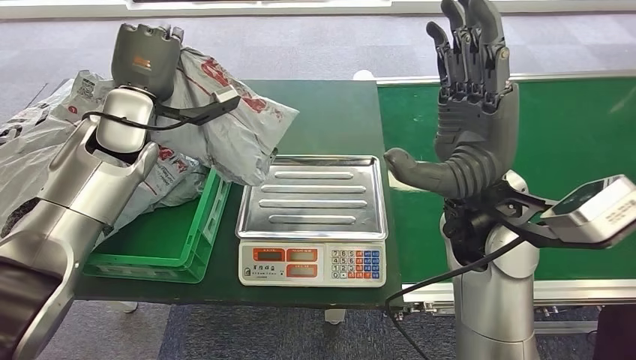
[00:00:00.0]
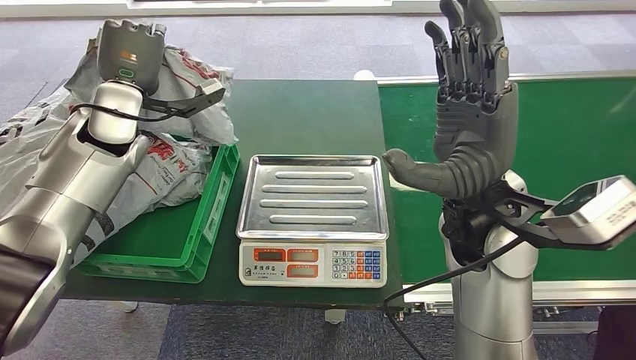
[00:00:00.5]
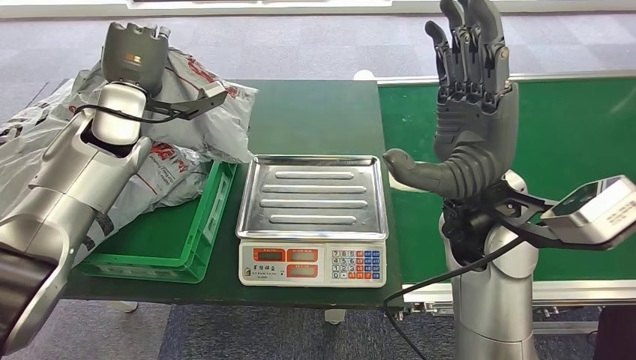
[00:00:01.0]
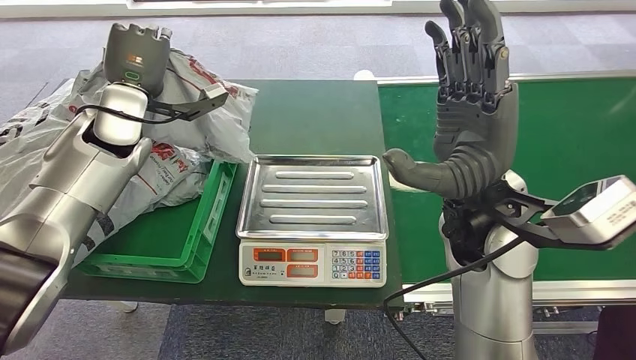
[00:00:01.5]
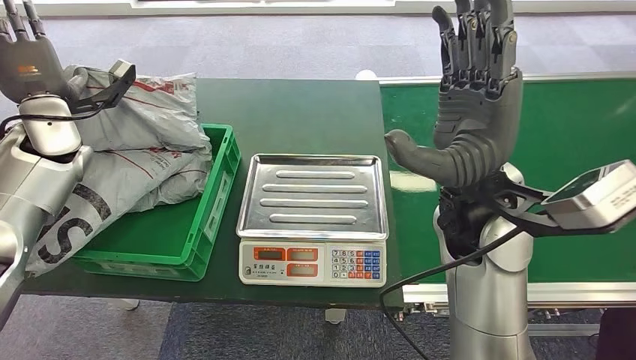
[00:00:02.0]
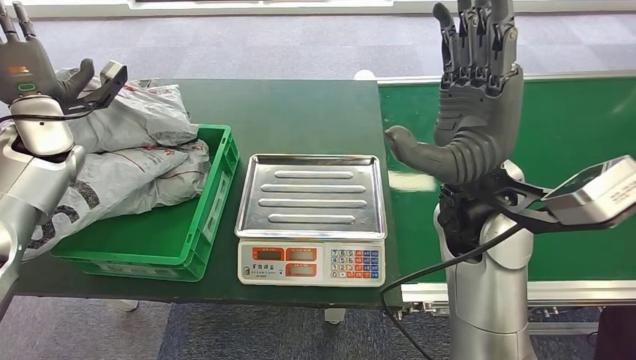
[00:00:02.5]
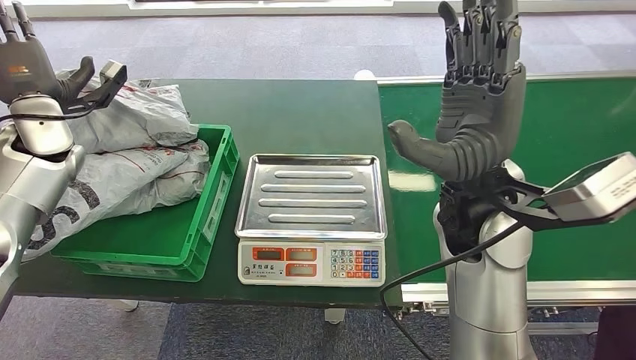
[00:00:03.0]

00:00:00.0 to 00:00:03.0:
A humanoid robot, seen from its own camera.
Step, 00:00:00.0 to 00:00:03.0: Place the package into the parcel locker.
00:00:00.0 to 00:00:01.5: The hands stay close to where they were, moving slightly.

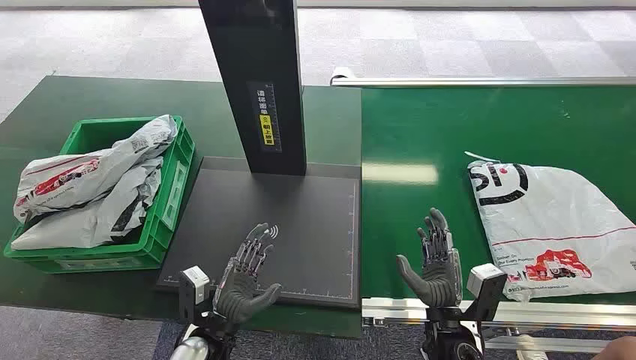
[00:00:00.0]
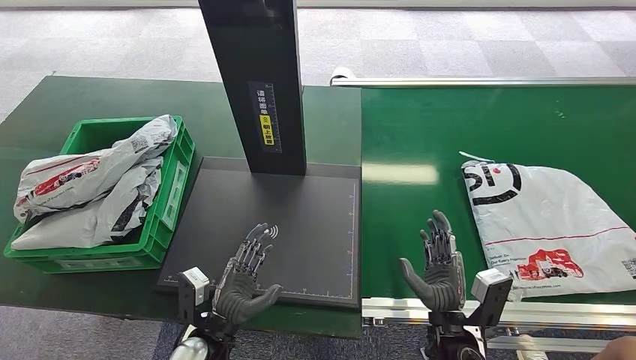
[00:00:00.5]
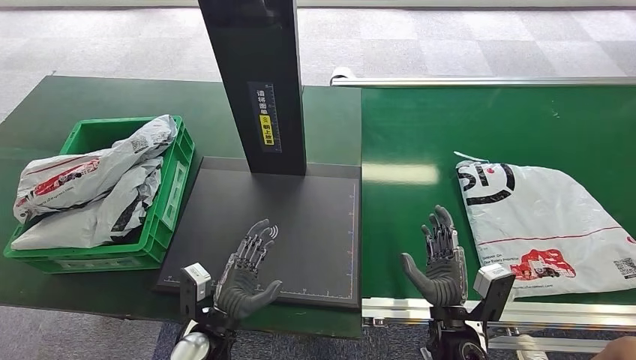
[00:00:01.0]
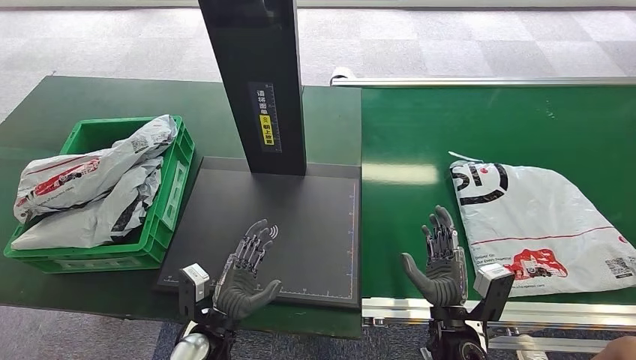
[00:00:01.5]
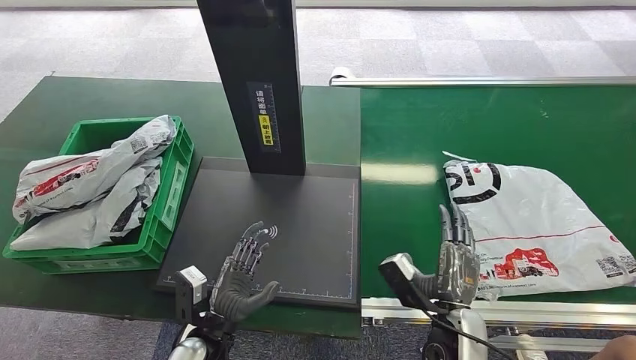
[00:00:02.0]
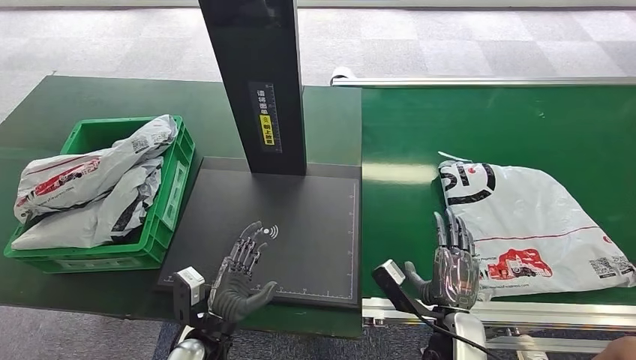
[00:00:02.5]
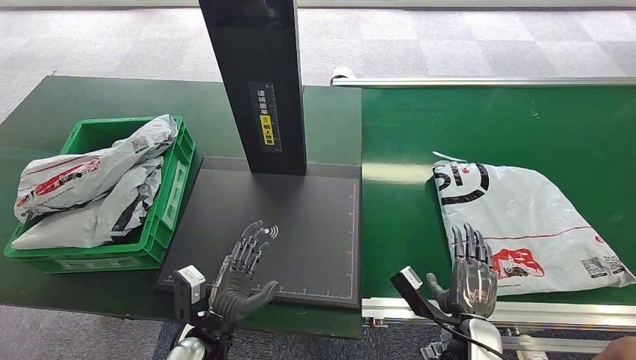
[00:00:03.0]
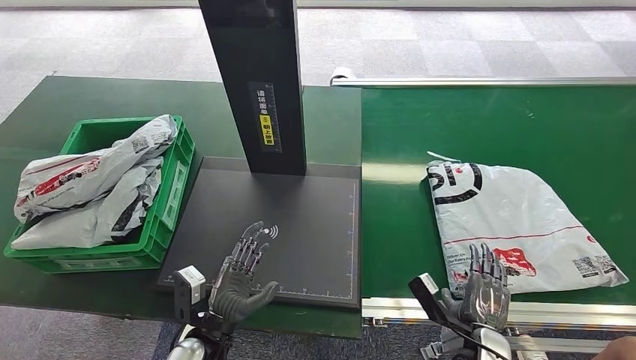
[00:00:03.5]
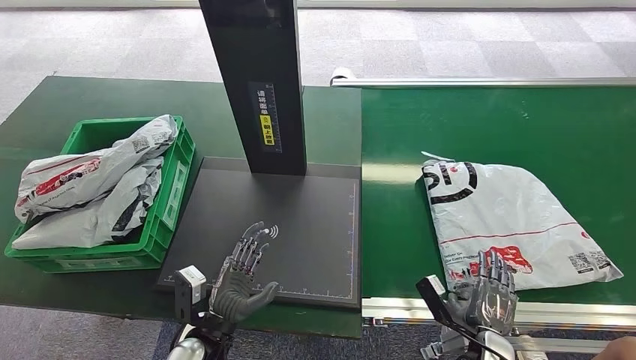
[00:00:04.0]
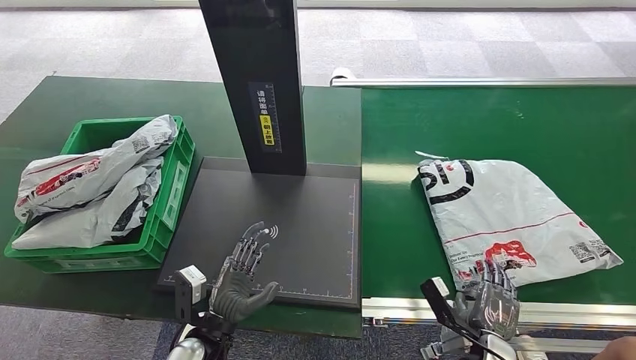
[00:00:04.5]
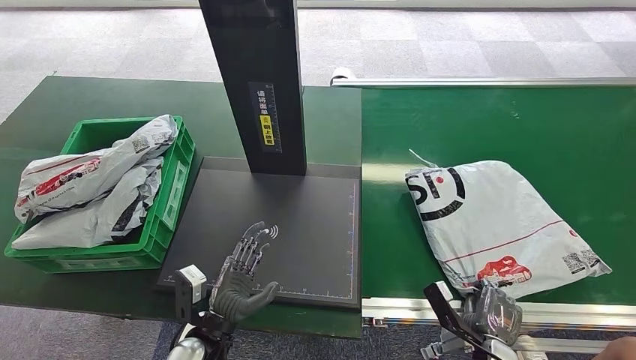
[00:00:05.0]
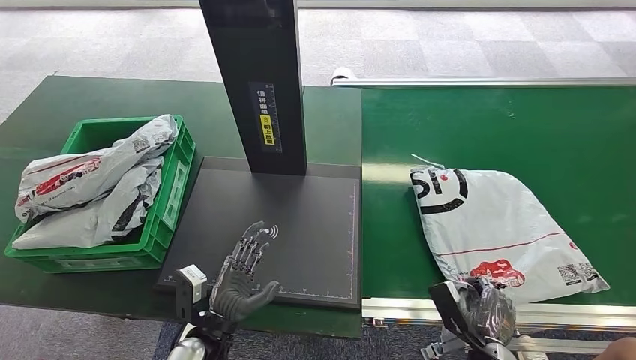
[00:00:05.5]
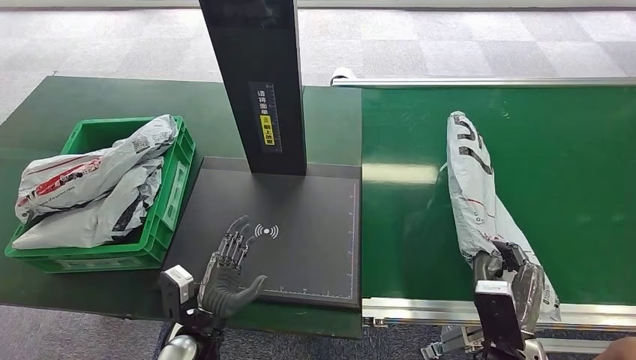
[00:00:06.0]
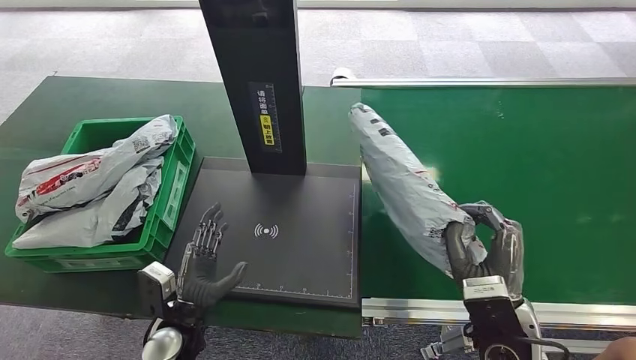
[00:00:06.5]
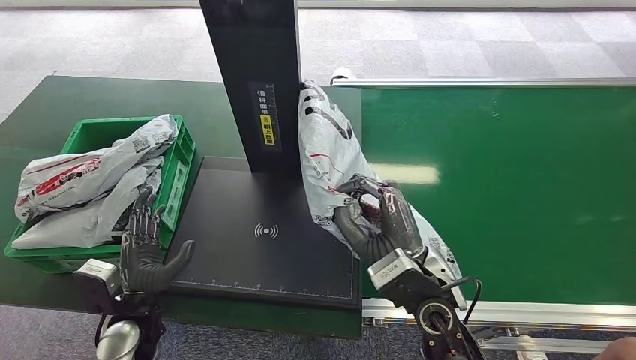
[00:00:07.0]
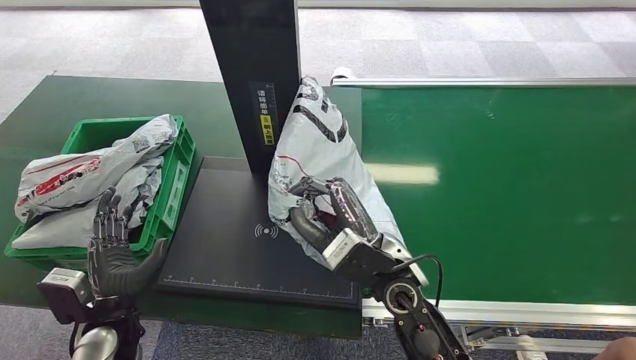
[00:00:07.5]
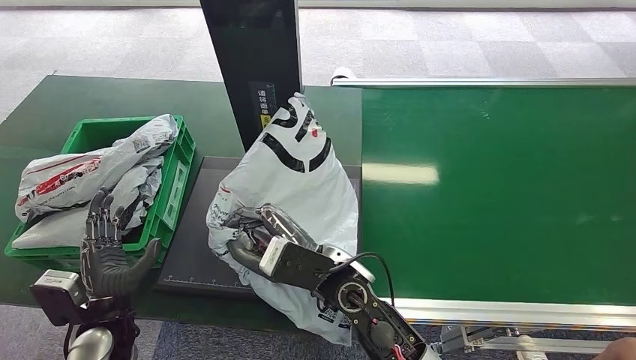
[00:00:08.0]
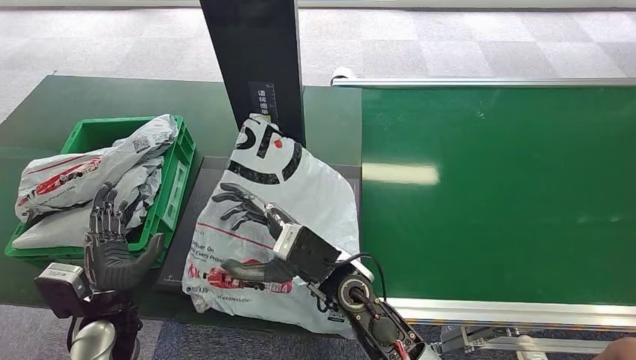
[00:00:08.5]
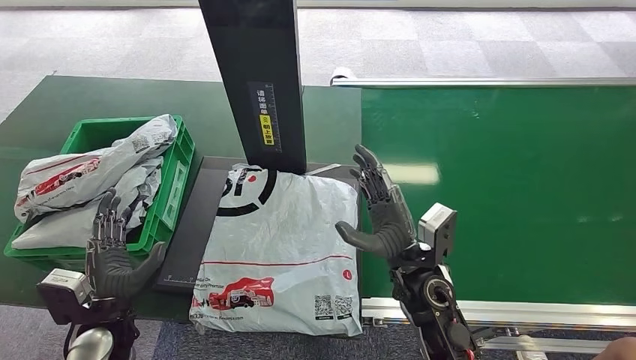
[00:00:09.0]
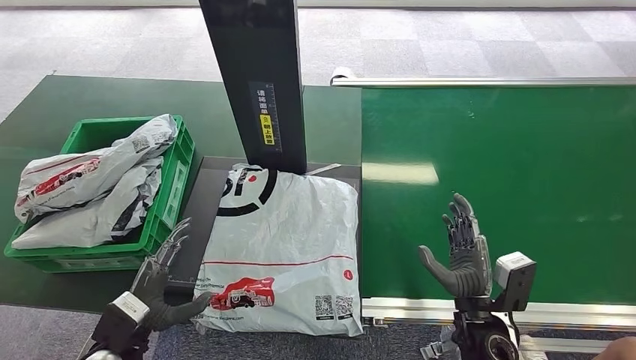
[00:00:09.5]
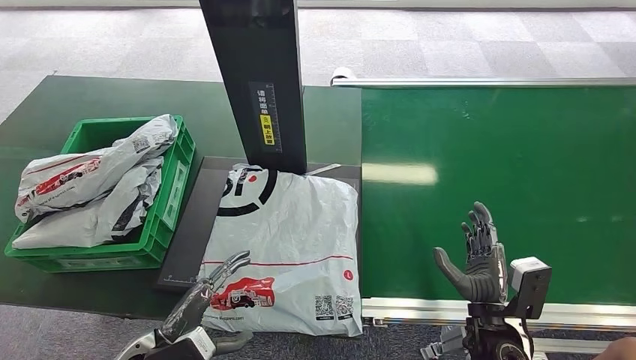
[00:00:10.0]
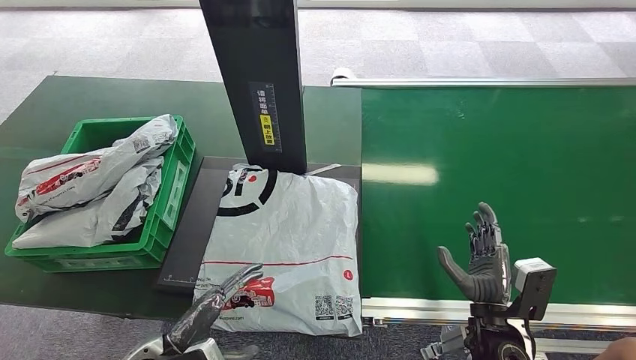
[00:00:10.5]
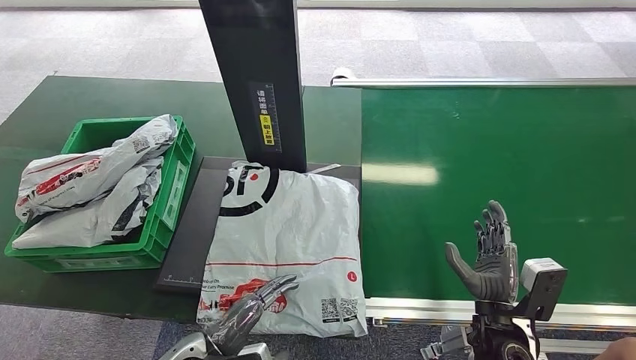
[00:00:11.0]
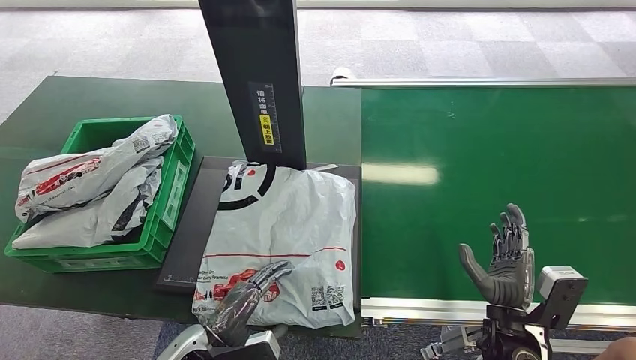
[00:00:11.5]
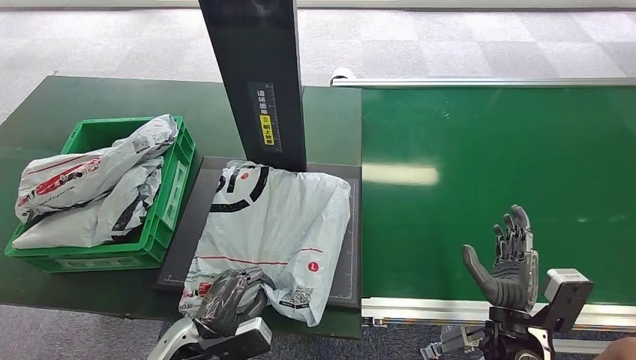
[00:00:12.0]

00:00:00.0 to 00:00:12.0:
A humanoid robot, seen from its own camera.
Step, 00:00:00.0 to 00:00:06.5: Pick up the package from the conveyor belt.
Step, 00:00:07.0 to 00:00:11.5: Place the package onto the inbound machine.
00:00:02.0 to 00:00:04.0: The right hand shifts some 15 cm to the right and downward.
00:00:04.0 to 00:00:06.0: The right hand is displaced upward by some 10 cm.
00:00:08.0 to 00:00:10.0: The left hand heads to the right, covering approximately 5 cm. Meanwhile the right hand goes about 25 cm to the right.
00:00:10.0 to 00:00:12.0: The left hand heads to the right, covering approximately 5 cm.

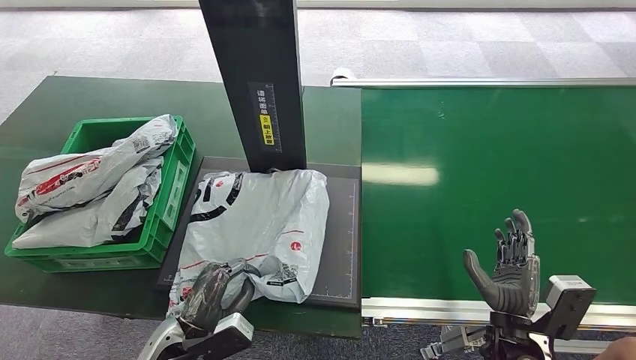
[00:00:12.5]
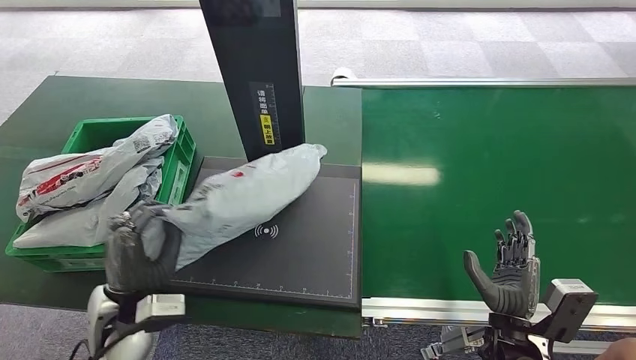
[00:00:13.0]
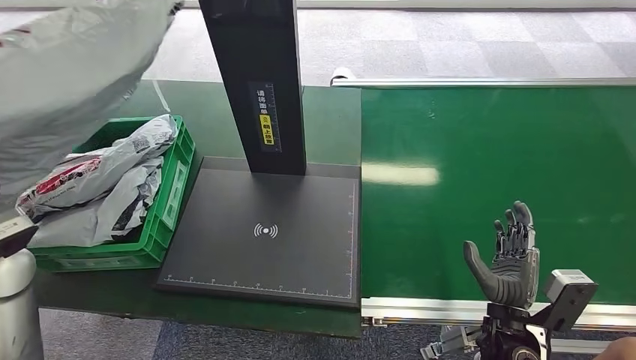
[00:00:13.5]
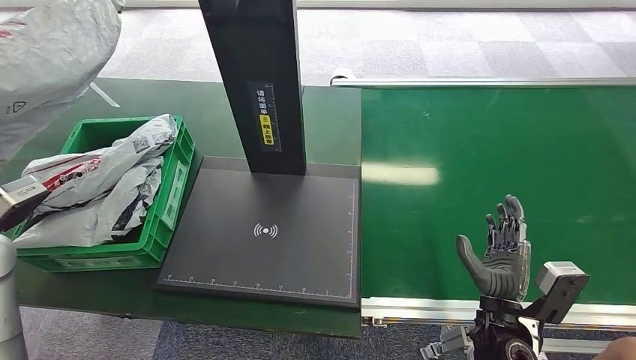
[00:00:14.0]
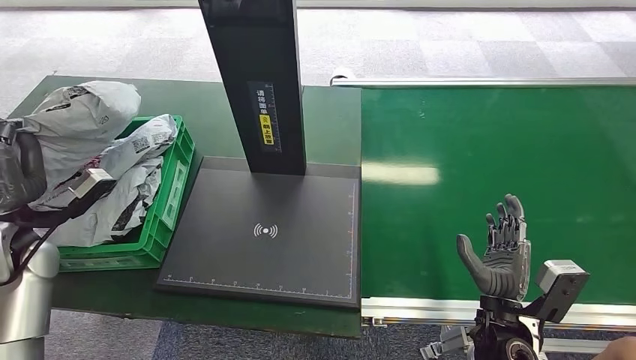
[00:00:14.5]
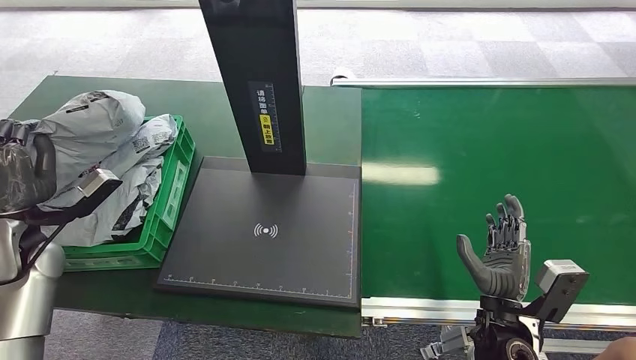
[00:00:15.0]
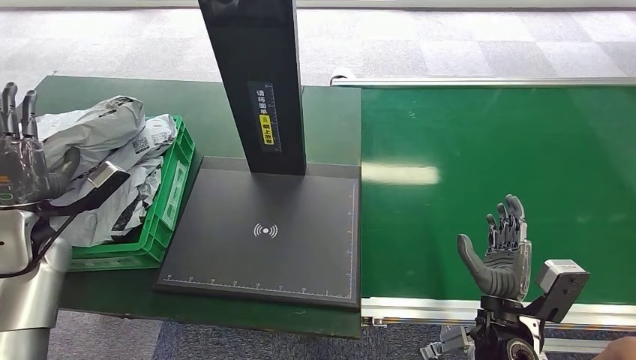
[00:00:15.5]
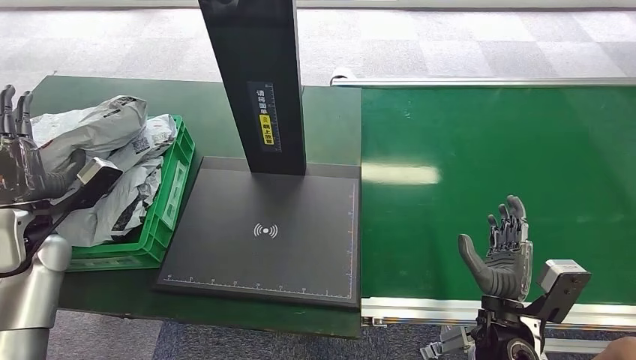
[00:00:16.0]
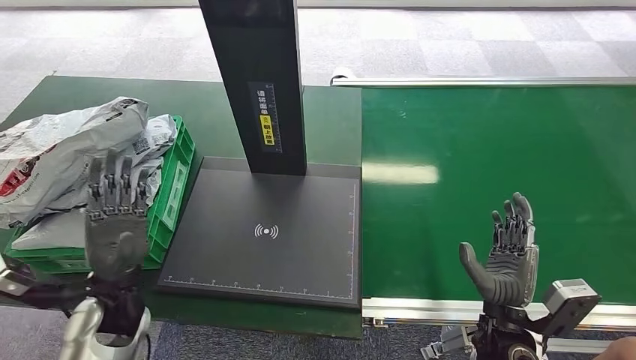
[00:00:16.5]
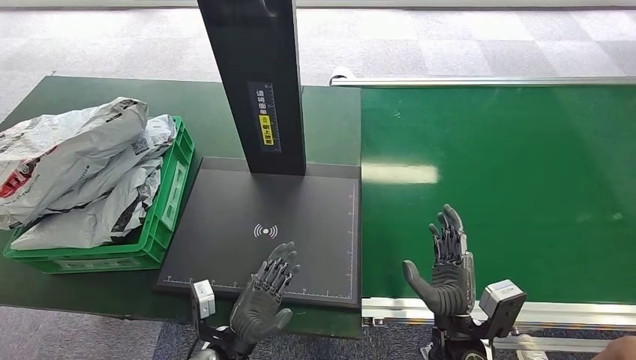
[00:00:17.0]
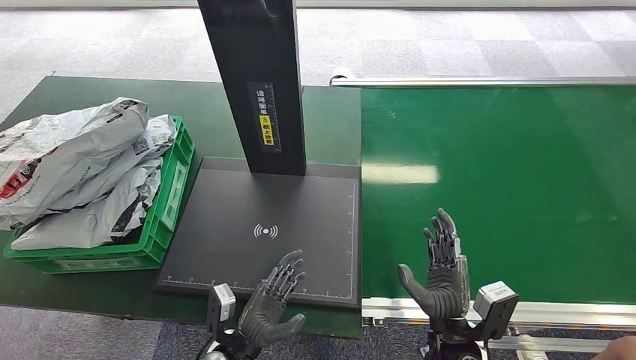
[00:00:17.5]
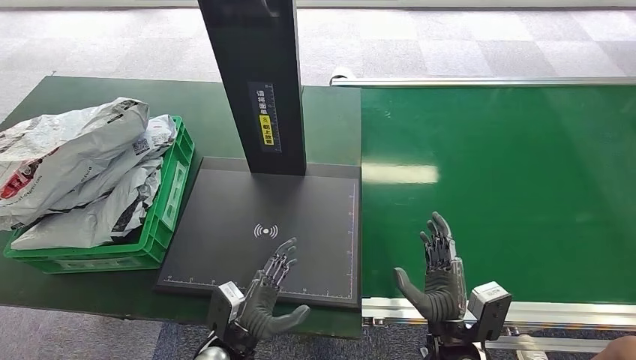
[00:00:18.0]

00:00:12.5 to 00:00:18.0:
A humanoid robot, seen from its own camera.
Step, 00:00:12.5 to 00:00:13.5: Pick up the package from the inbound machine.
Step, 00:00:14.0 to 00:00:18.0: Place the package into the parcel locker.
00:00:14.5 to 00:00:16.0: There are only small adjustments of the hands.
00:00:16.0 to 00:00:18.0: The right hand travels to the left by some 5 cm. Meanwhile the left hand moves to the right and downward, roughly 35 cm.
